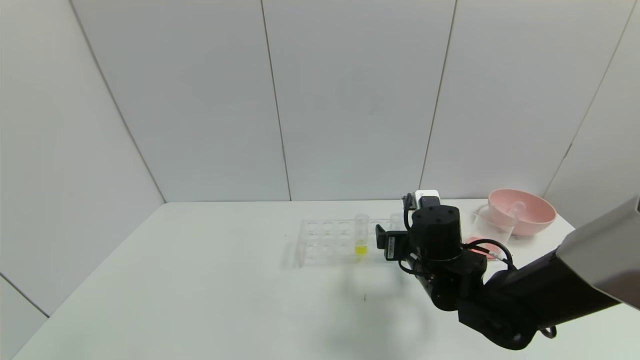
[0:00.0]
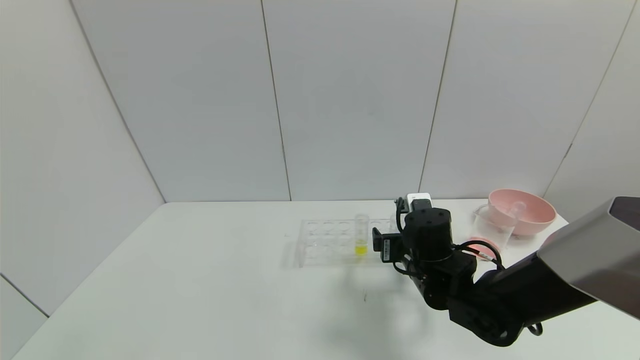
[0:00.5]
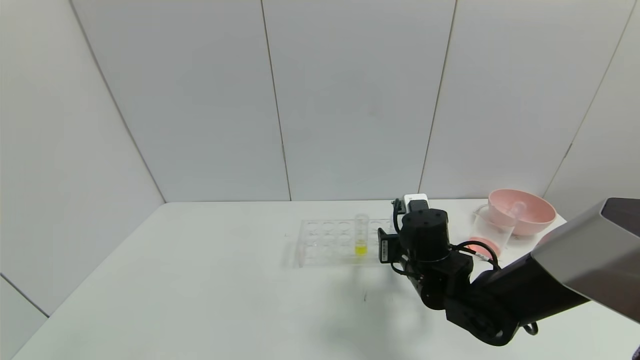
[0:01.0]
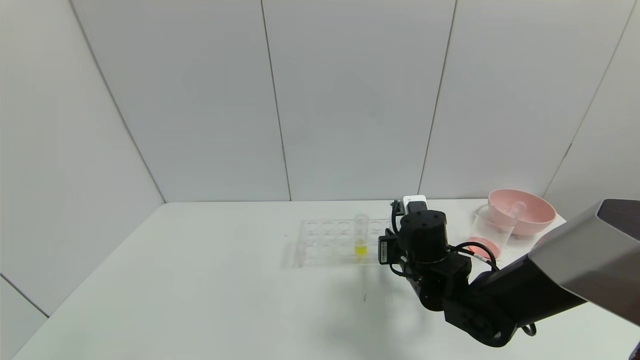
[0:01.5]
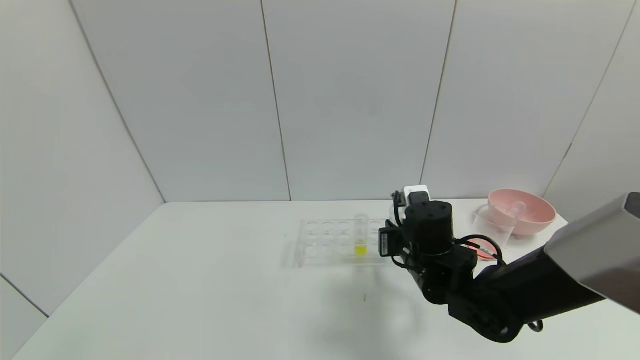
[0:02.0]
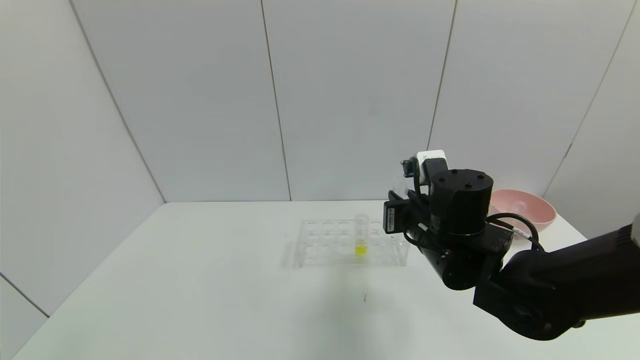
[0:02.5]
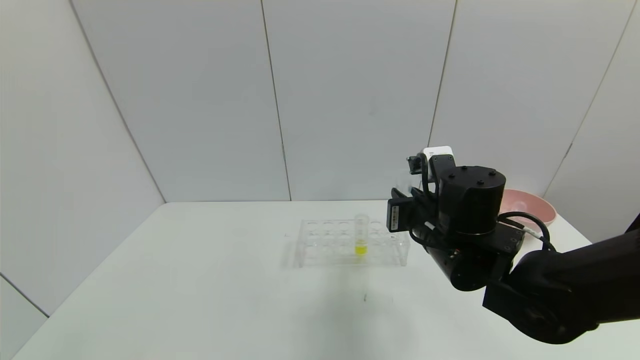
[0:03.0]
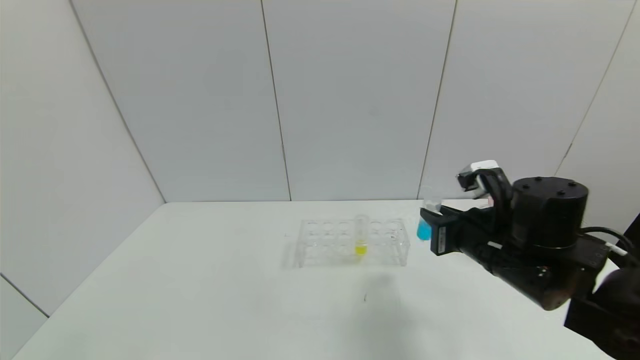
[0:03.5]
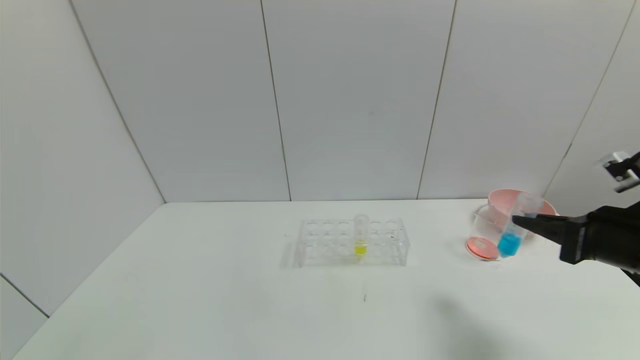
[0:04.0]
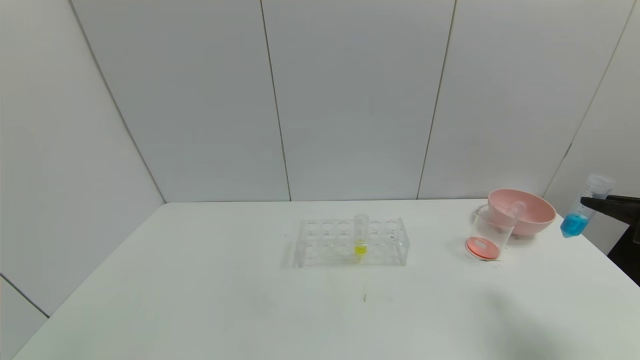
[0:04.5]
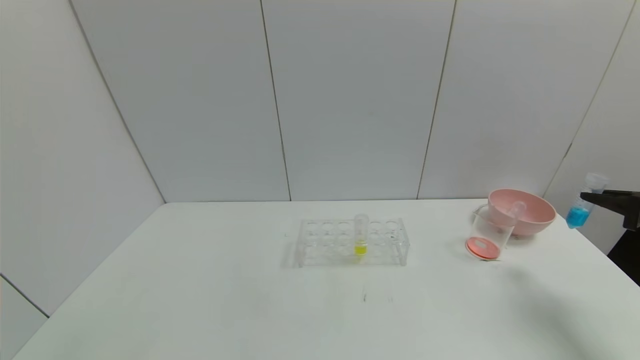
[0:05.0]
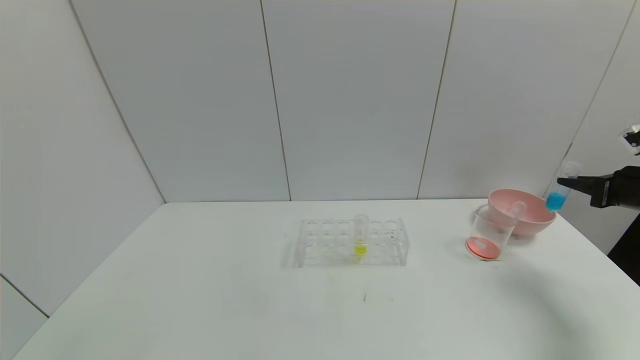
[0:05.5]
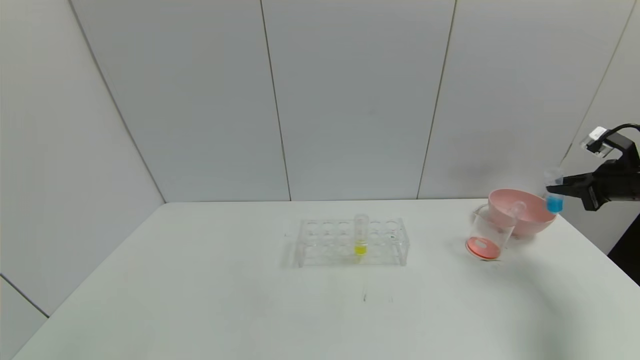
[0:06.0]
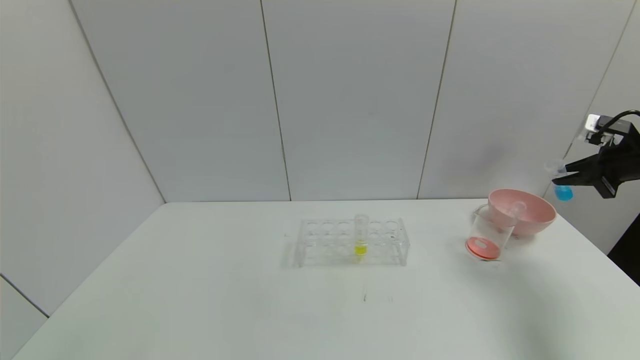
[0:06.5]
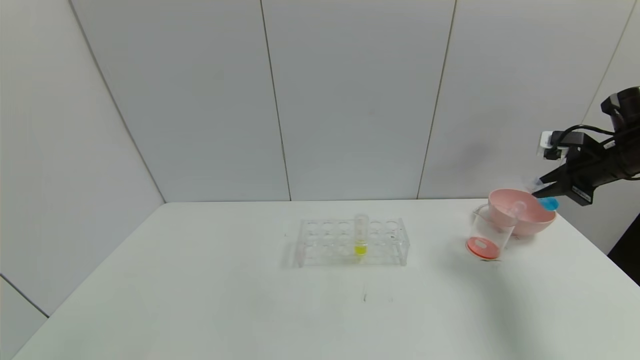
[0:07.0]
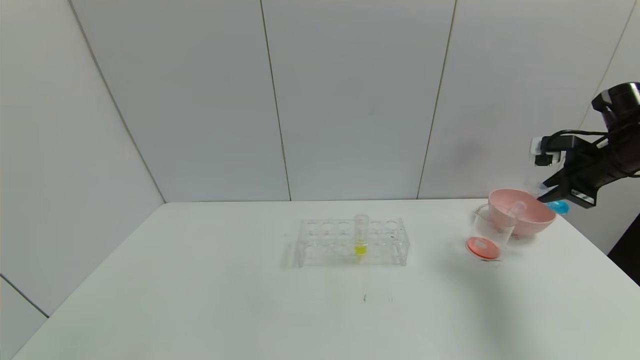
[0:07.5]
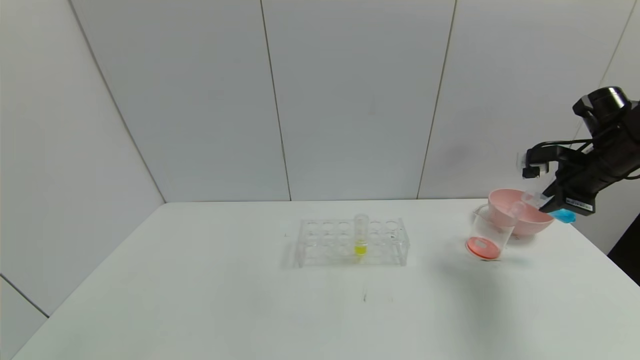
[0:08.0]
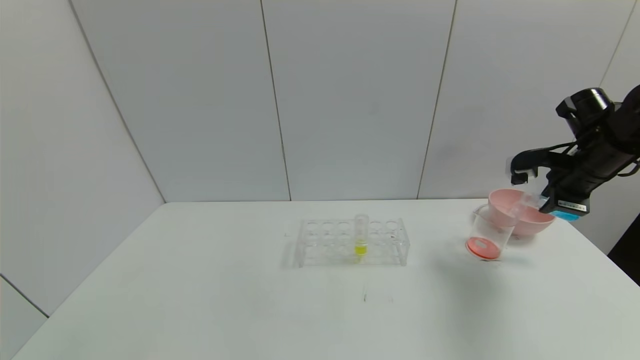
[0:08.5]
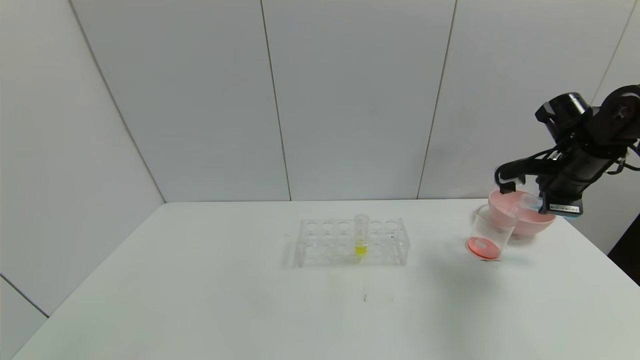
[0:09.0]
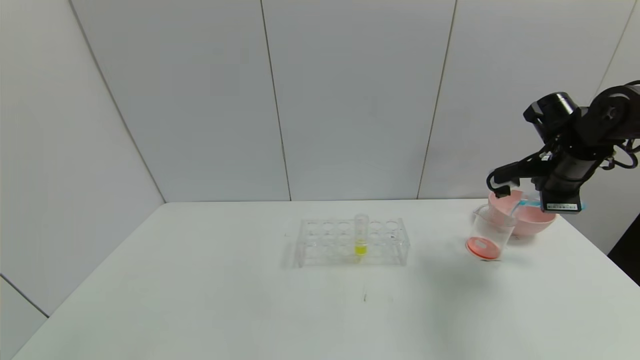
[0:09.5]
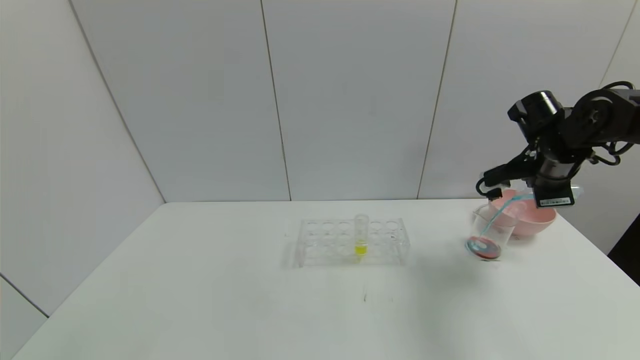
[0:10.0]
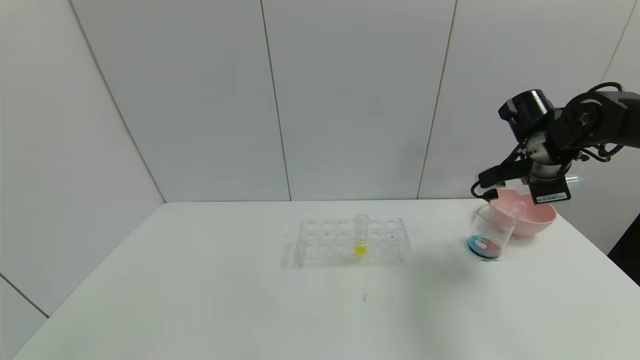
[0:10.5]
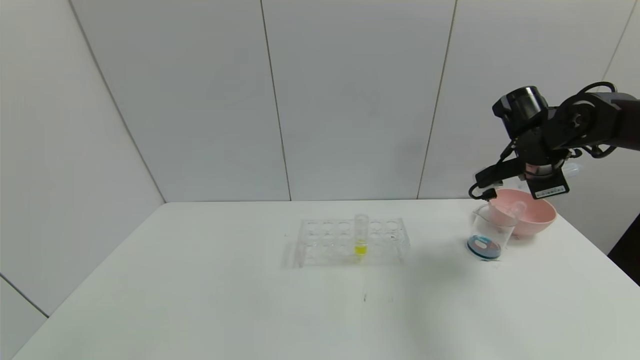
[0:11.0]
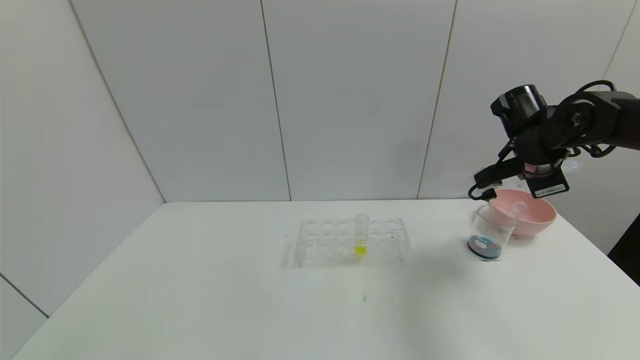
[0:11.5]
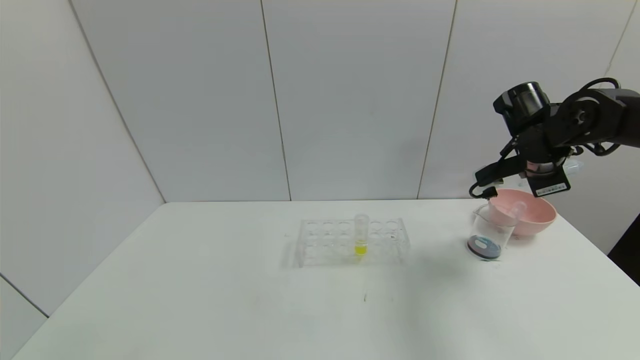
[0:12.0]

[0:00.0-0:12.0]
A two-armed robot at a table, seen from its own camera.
Task of the whole recording: pick up the test tube with red pigment and the test tube with blue pigment by grippers and pour them into the container.
Step, 0:00.0 to 0:05.5: Pick up the test tube containing the blue reagent with right gripper.
0:00.0 to 0:02.0: The right gripper closes its fingers.
0:02.0 to 0:04.0: The right gripper goes roughly 25 cm to the right, upward and backward.
0:04.0 to 0:06.0: The right gripper is displaced to the right and forward by about 20 cm.
0:06.0 to 0:08.0: The right gripper travels to the left by some 10 cm.
0:08.0 to 0:10.0: The right gripper heads to the left, covering some 5 cm.
0:10.0 to 0:12.0: The grippers move only a little.

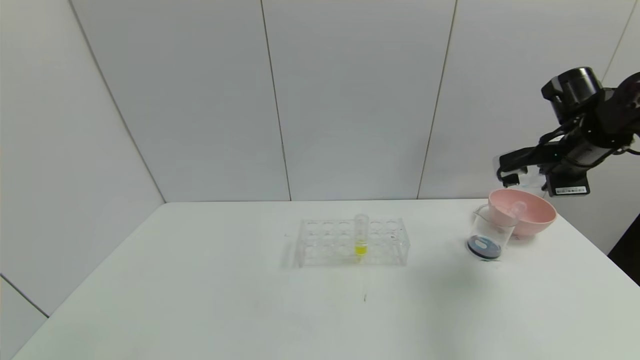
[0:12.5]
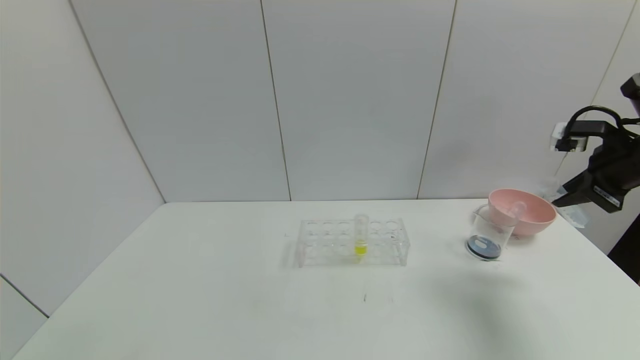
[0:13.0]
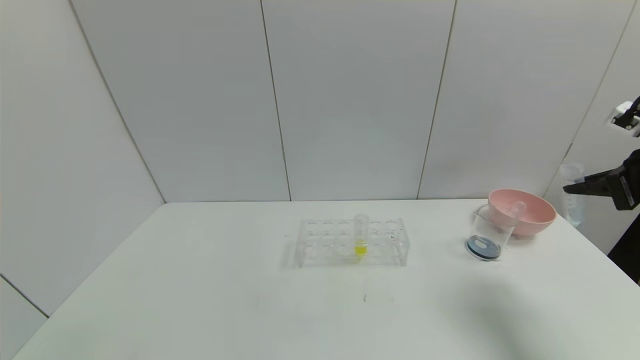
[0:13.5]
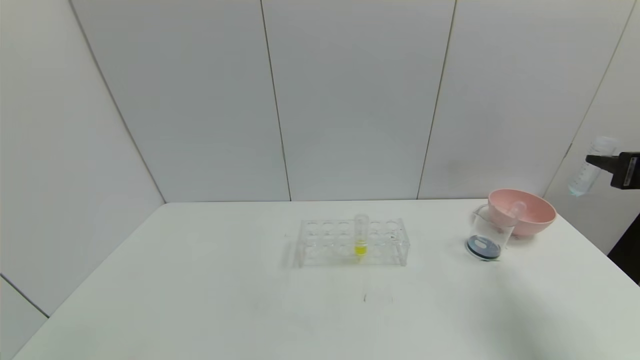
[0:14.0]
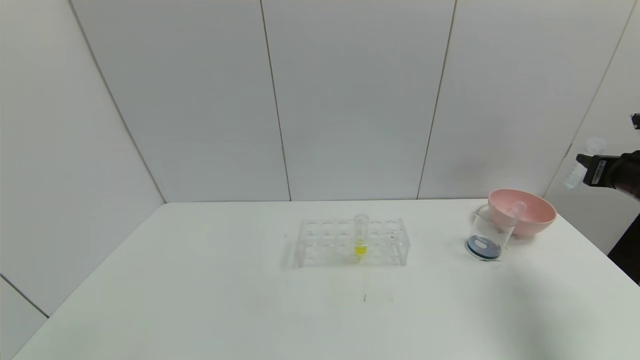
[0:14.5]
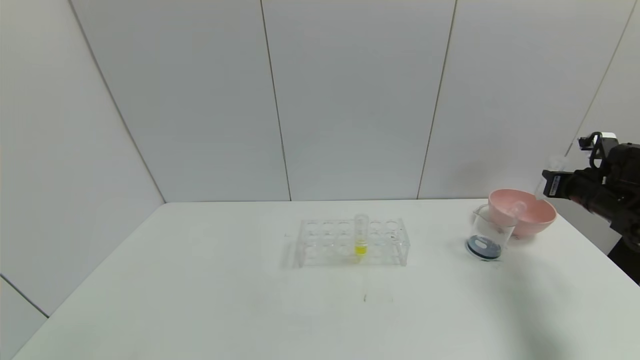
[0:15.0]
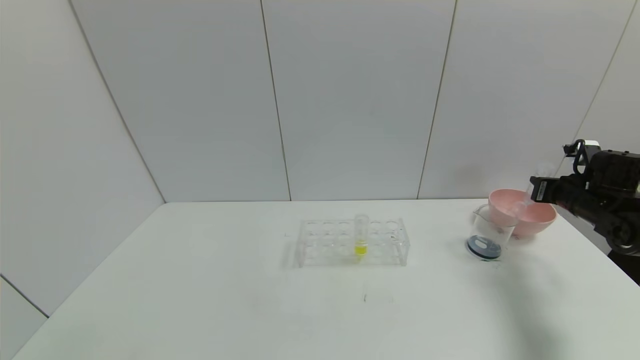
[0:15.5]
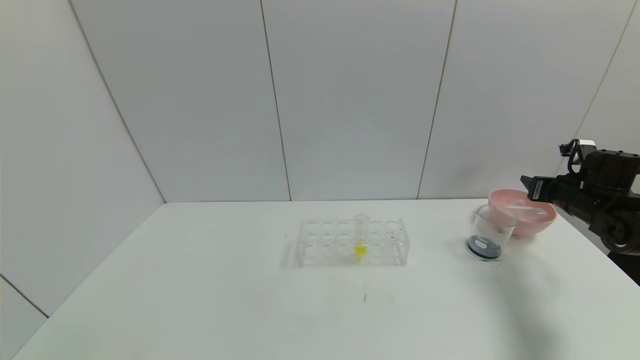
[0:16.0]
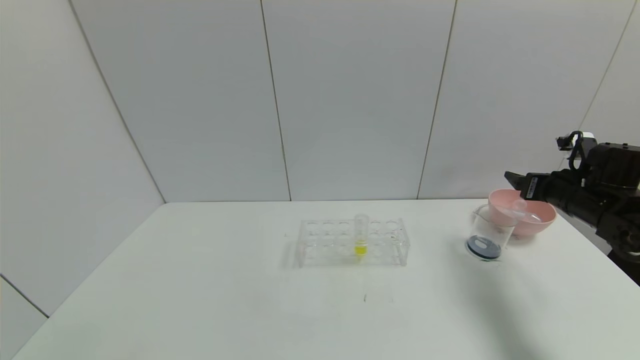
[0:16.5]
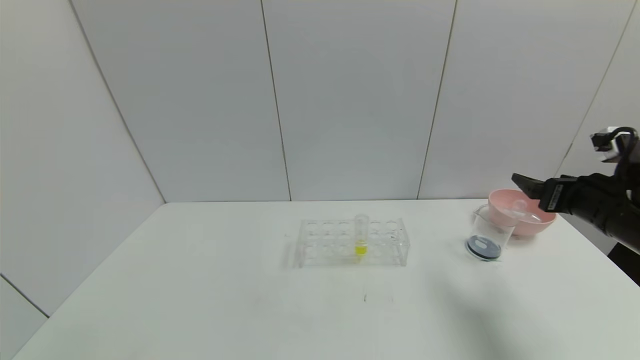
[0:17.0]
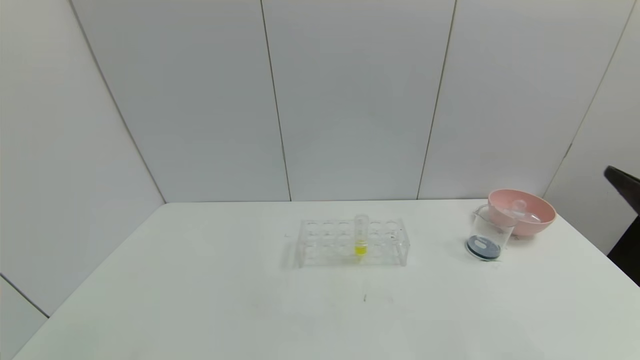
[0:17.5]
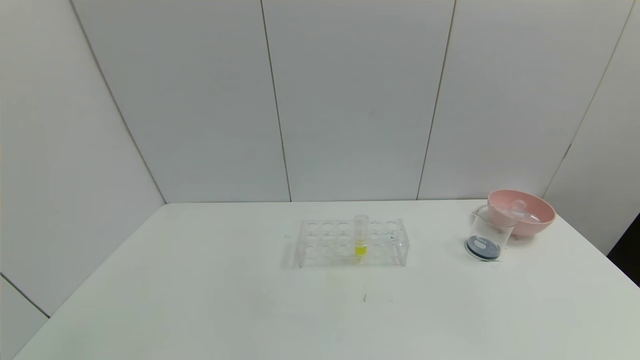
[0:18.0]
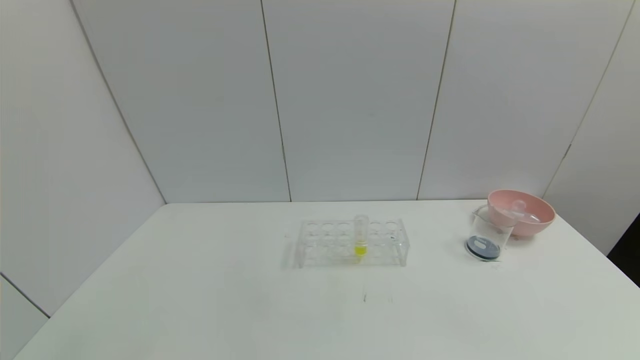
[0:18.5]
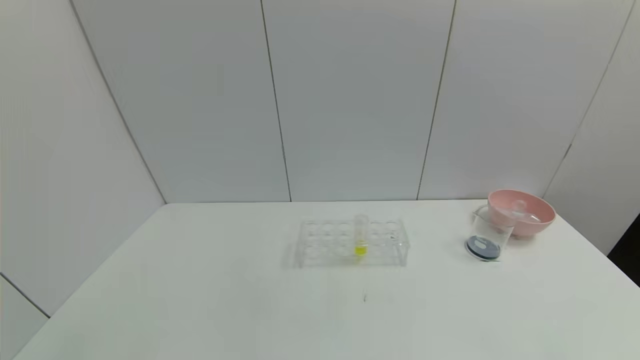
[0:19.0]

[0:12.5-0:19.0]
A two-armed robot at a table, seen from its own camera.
Task of the whole recording: pick up the test tube with red pigment and the test tube with blue pigment by grippers and pour them into the container.
Step, 0:14.5 to 0:17.0: Place the test tube into the bowl with right gripper.
0:12.5 to 0:14.5: The right gripper heads to the right and backward, covering some 10 cm.
0:14.5 to 0:17.0: The right gripper shifts roughly 10 cm to the left and backward, and opens.
0:17.0 to 0:19.0: The right gripper moves backward, approximately 30 cm.
